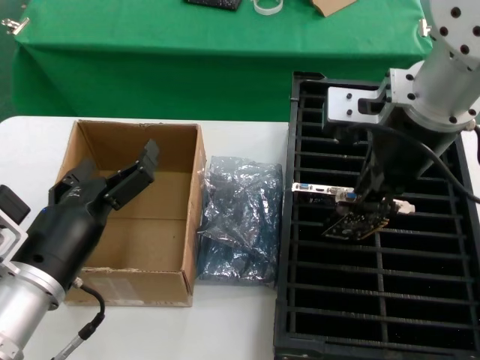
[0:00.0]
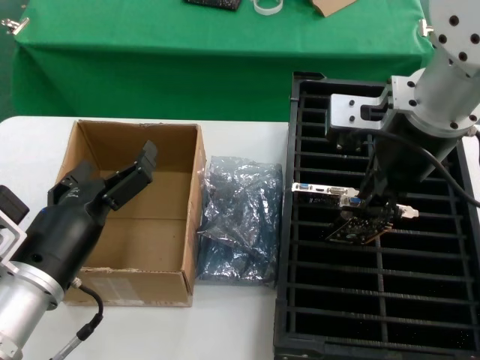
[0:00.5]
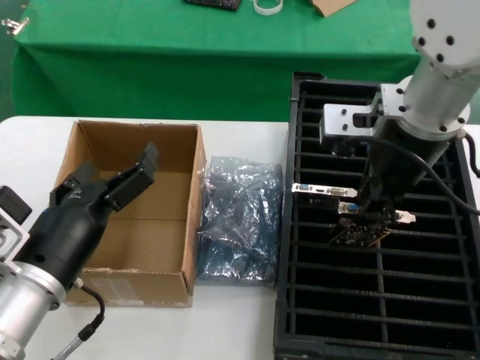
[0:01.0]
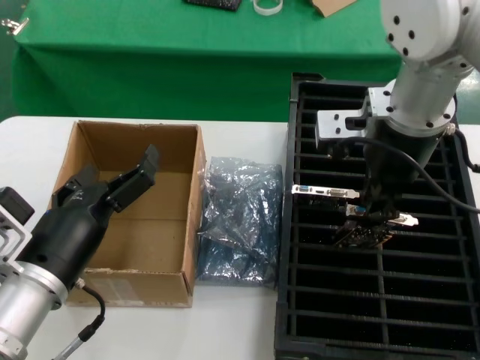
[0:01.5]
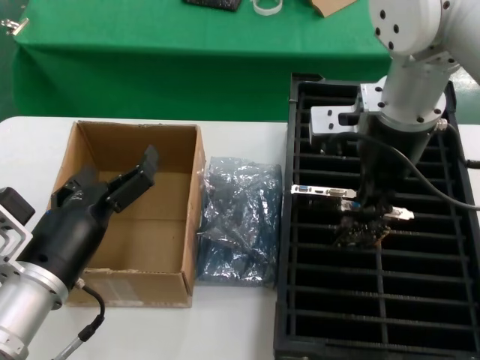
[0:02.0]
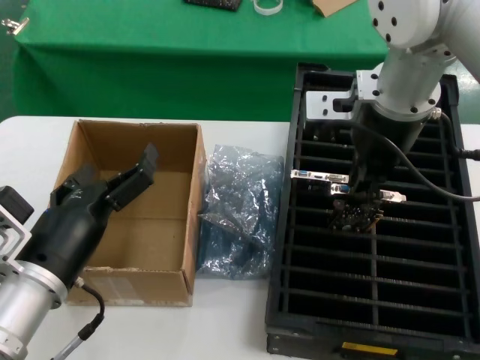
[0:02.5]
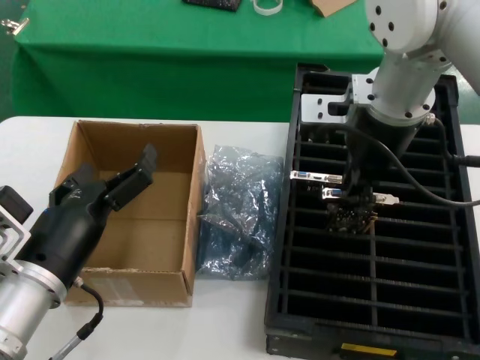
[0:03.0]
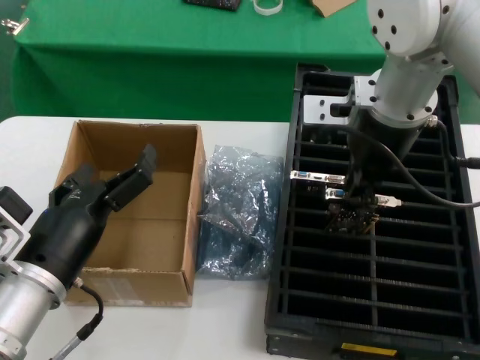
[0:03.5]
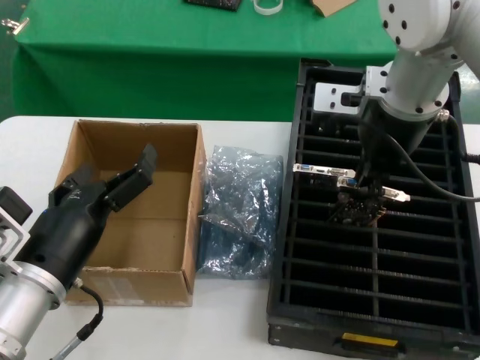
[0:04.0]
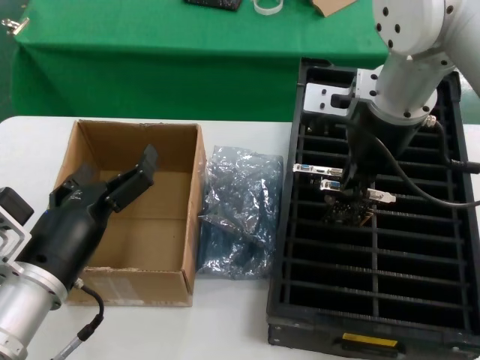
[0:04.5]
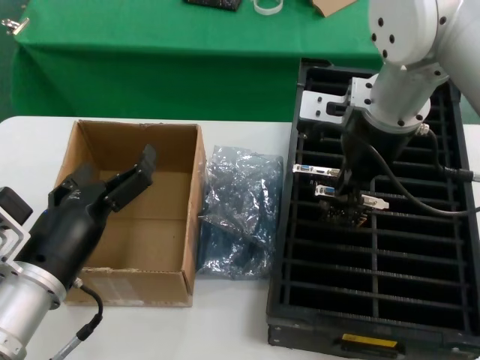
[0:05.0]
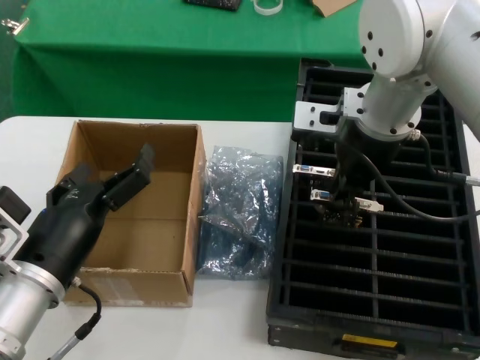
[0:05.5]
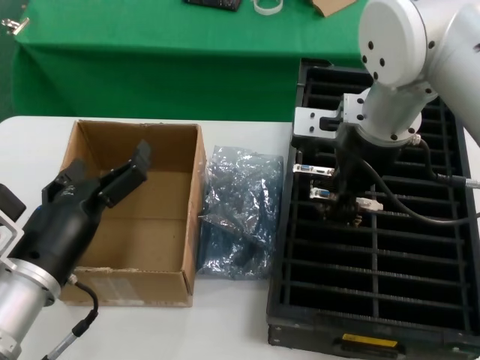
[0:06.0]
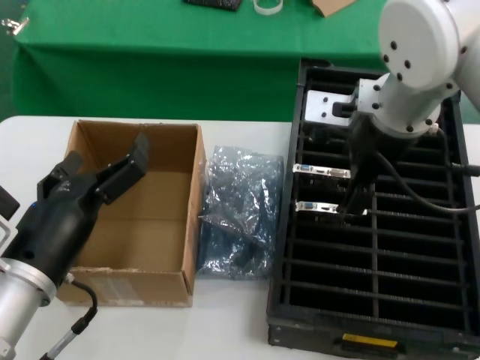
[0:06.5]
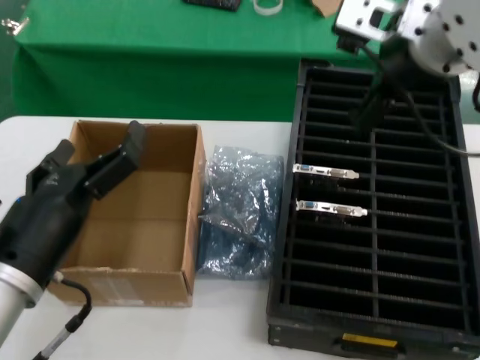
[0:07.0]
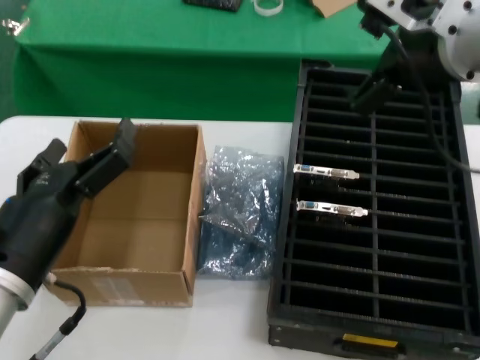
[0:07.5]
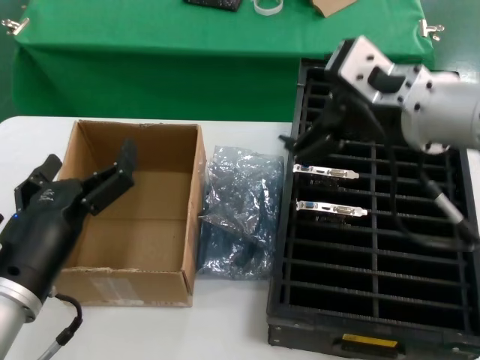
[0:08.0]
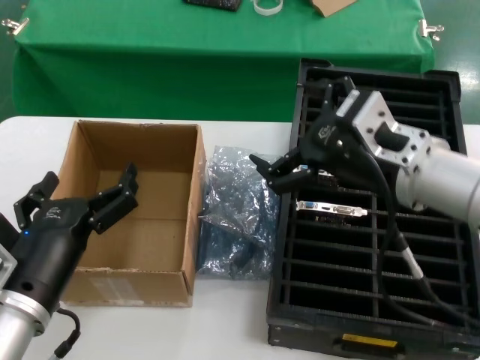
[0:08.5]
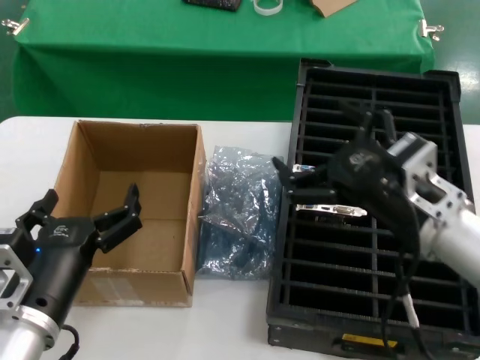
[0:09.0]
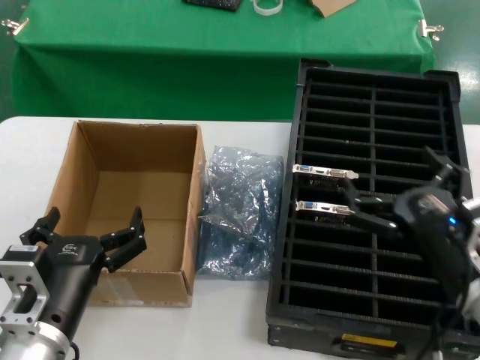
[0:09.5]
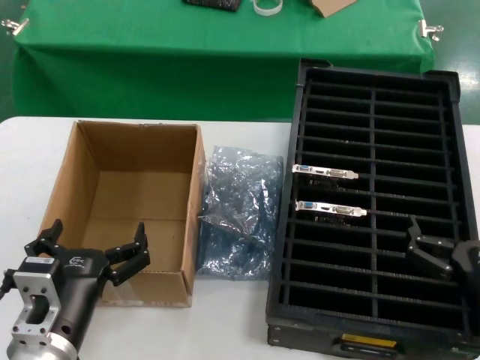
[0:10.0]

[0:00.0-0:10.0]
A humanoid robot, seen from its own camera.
Task of the whole recording: take out graphics card from box remove packaging put into black container.
Step, 0:00.0 to 0:07.0: Place the hard disk in the hard disk enclosure.
0:00.0 to 0:02.0: The right hand moves forward, some 5 cm.
0:02.0 to 0:06.0: The hands move only a little.
0:06.0 to 0:08.0: The right hand goes about 10 cm backward and to the right.
0:08.0 to 0:10.0: The left hand shifts some 10 cm downward. Meanwhile the right hand moves downward, to the right and backward, roughly 30 cm.
